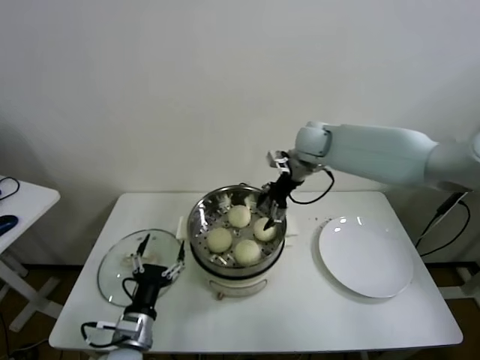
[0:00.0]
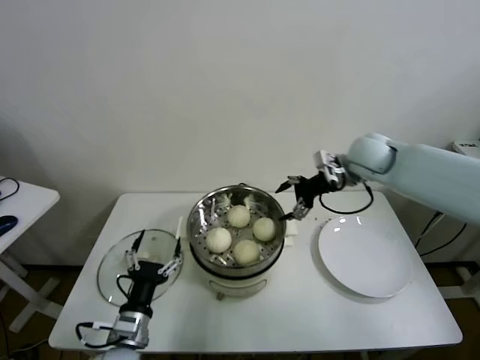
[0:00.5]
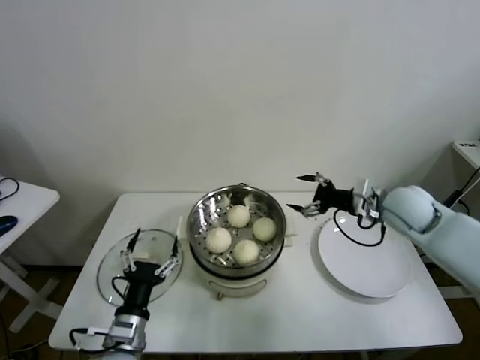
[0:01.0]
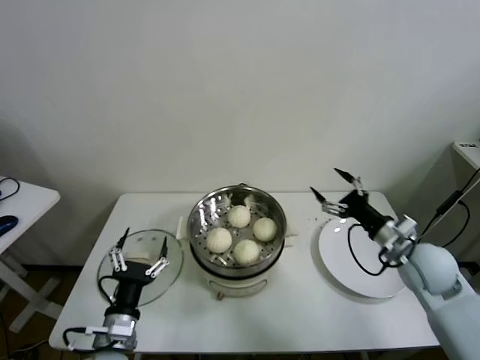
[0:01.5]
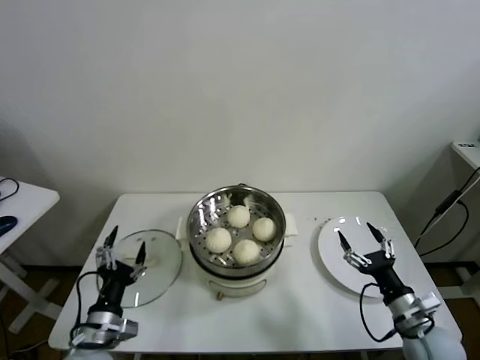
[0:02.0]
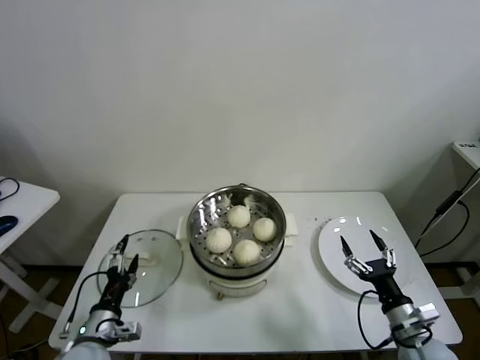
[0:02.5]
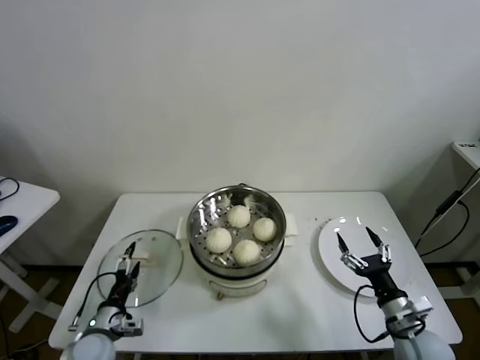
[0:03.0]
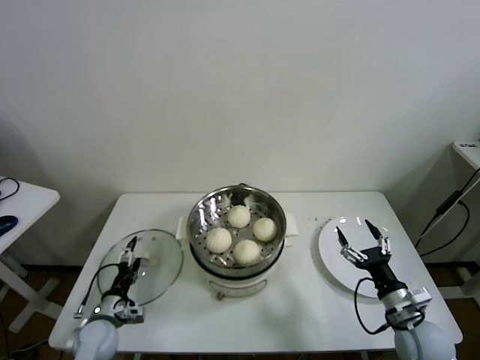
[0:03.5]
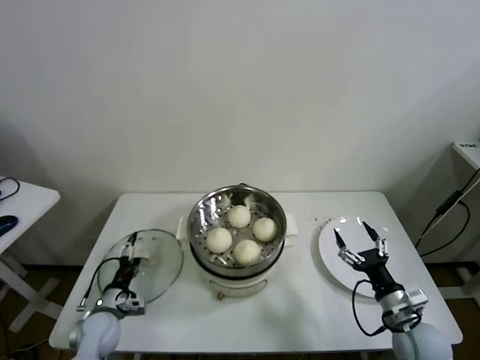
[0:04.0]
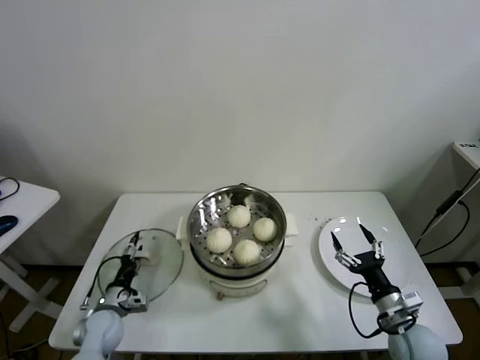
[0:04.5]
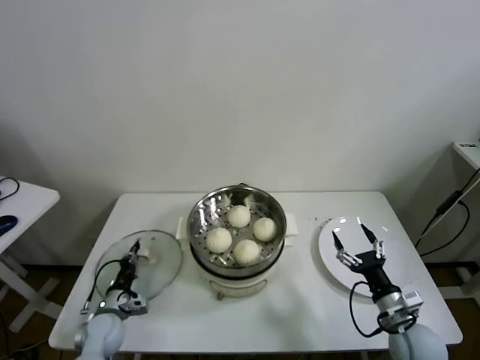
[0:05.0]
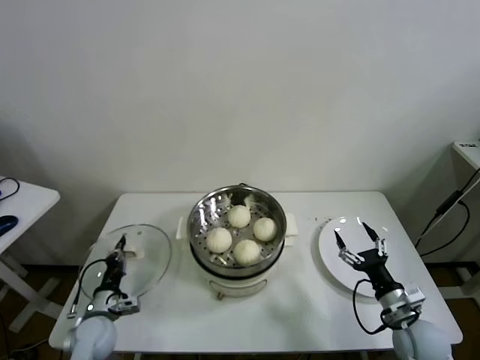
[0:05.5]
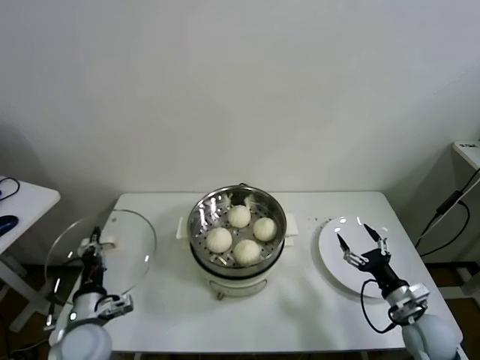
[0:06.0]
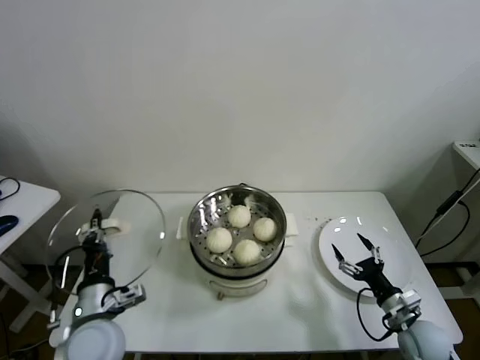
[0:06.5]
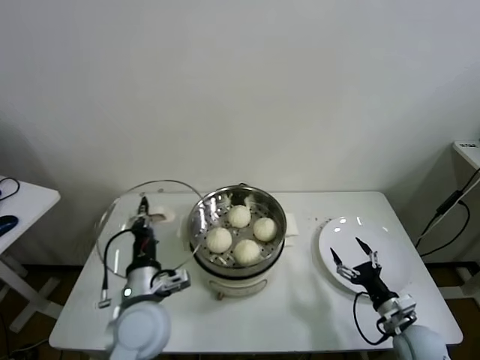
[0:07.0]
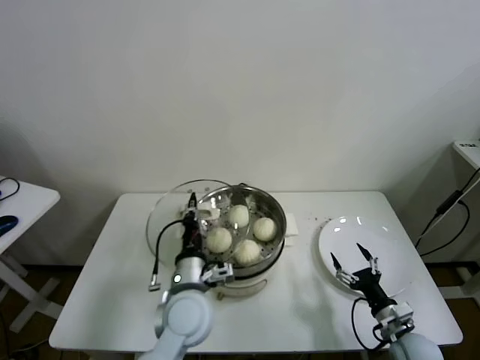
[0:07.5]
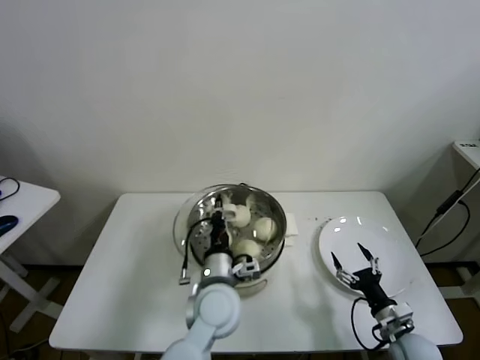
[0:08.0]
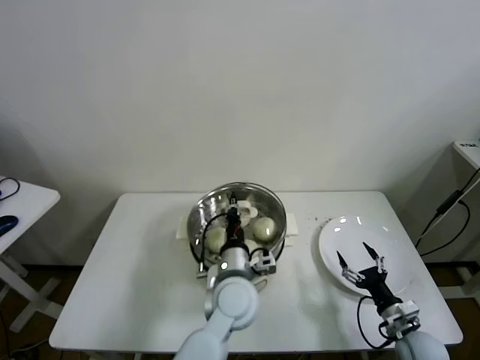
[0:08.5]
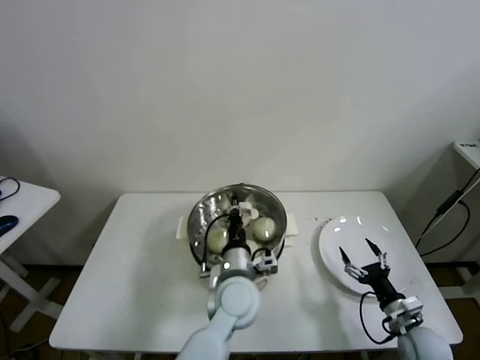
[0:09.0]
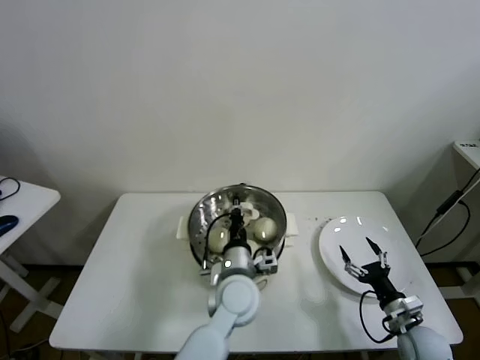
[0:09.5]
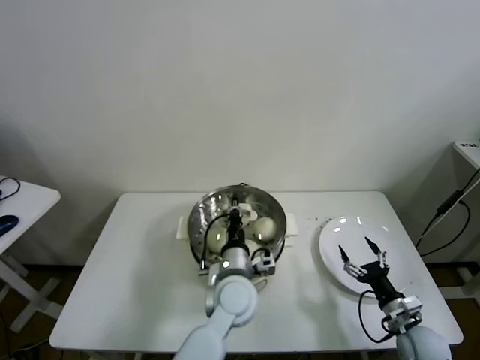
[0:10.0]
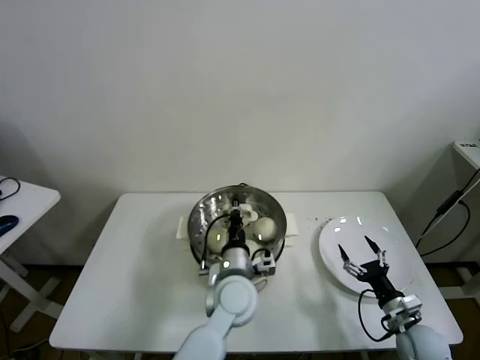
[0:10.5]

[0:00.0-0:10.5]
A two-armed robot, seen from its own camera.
Task of the whole recording: take steamed baozi put them in steamer.
Step, 0:00.0 to 0:04.5: Grasp the pot lid with left gripper.
0:00.0 to 0:02.0: The right gripper heads backward, downward and to the right, covering some 50 cm; the left gripper travels to the left by about 5 cm.
0:02.0 to 0:04.0: The left gripper is displaced downward, forward and to the left by some 15 cm.
0:04.0 to 0:06.5: The left gripper goes roughly 20 cm upward and to the right, and closes. The right gripper changes place by roughly 5 cm.
0:06.5 to 0:08.5: The left gripper heads to the right, covering roughly 25 cm.
0:08.5 to 0:10.5: The grippers make only small movements.

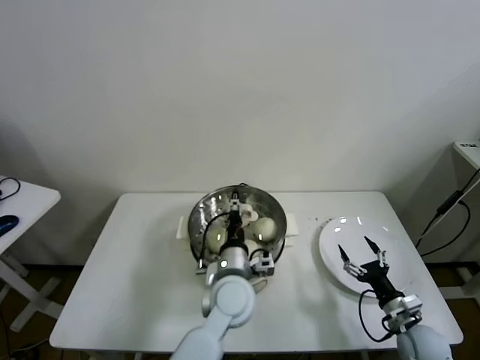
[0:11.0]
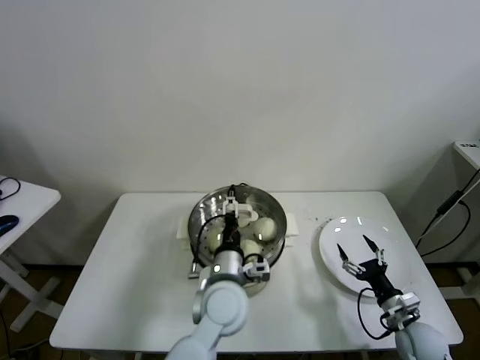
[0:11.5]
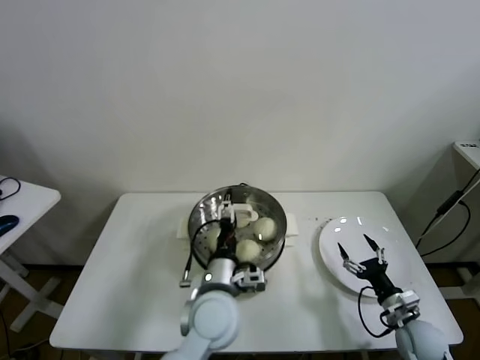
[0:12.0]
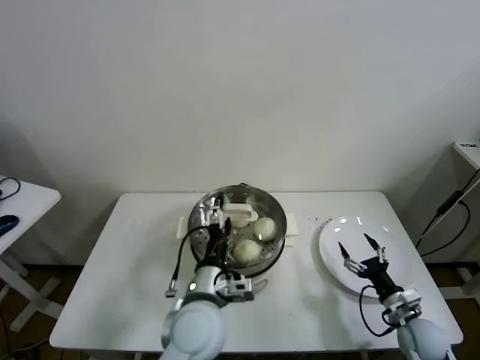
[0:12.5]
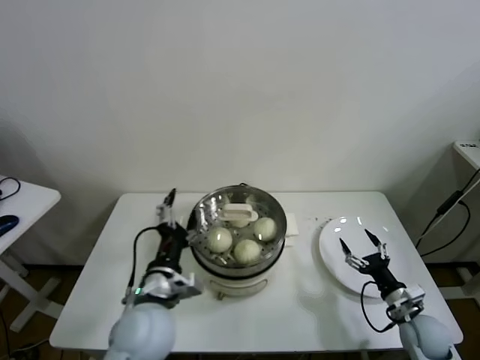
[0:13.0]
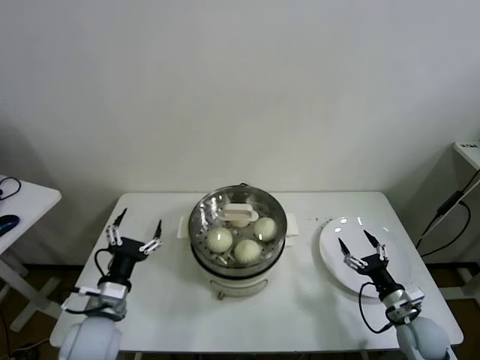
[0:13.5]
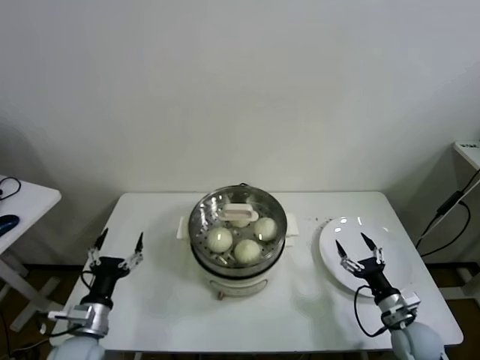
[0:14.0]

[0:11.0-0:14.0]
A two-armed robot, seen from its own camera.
Task of the whole recording: take steamed baozi put them in steamer.
0:11.0 to 0:12.5: The left gripper goes some 5 cm backward, and opens.
0:12.5 to 0:14.0: The left gripper shifts approximately 25 cm to the left.

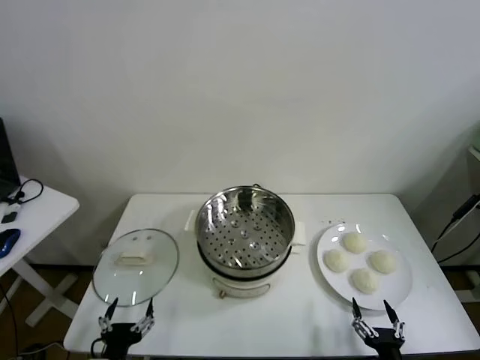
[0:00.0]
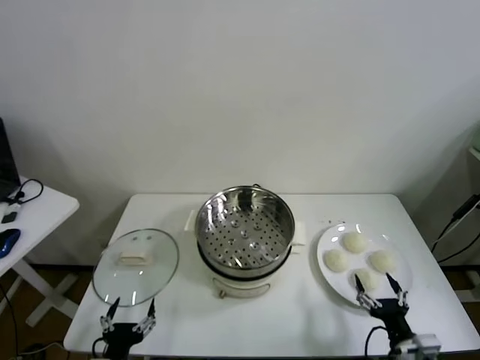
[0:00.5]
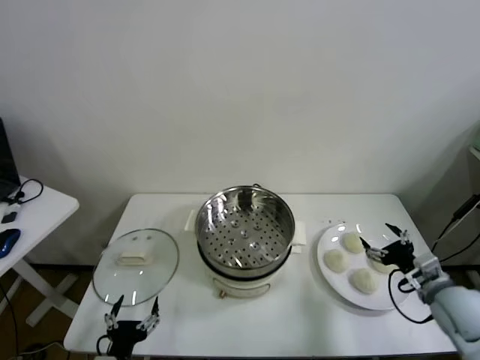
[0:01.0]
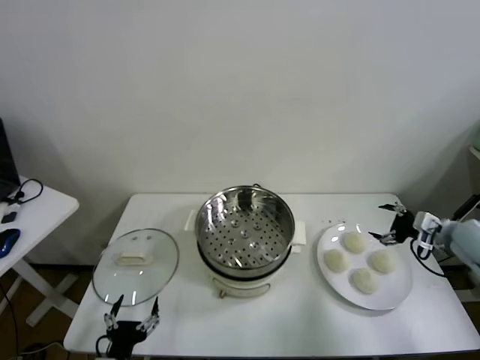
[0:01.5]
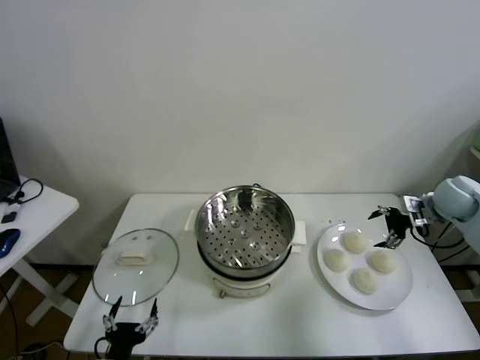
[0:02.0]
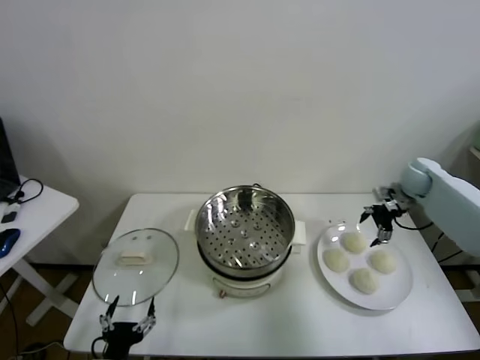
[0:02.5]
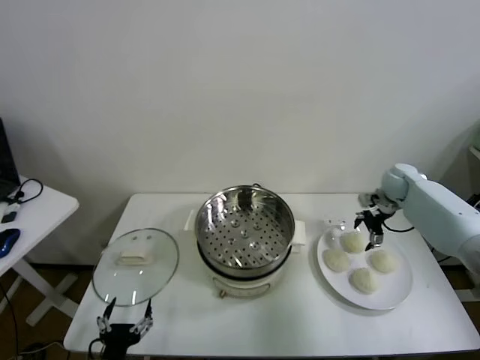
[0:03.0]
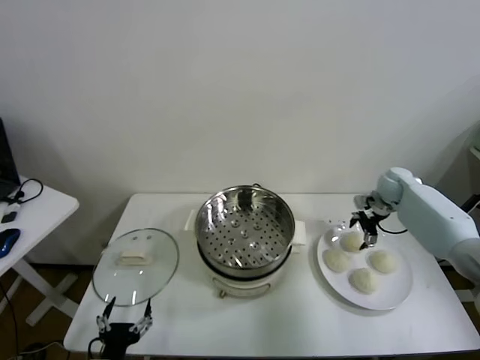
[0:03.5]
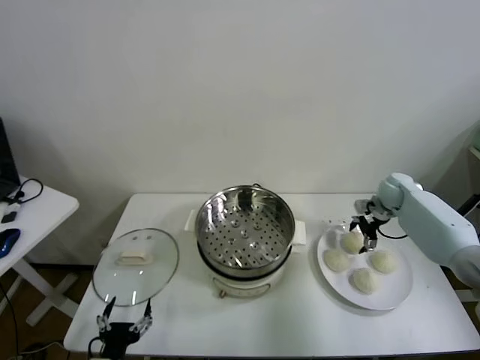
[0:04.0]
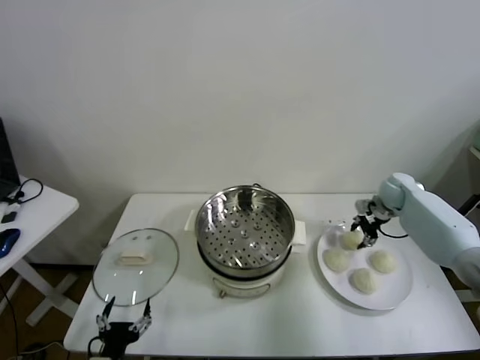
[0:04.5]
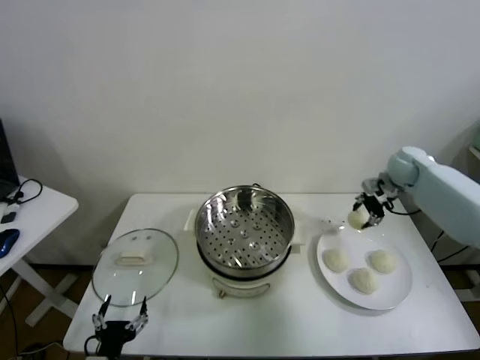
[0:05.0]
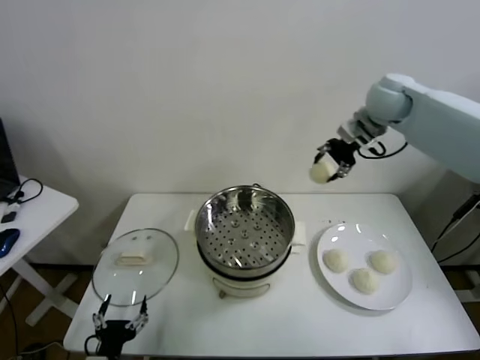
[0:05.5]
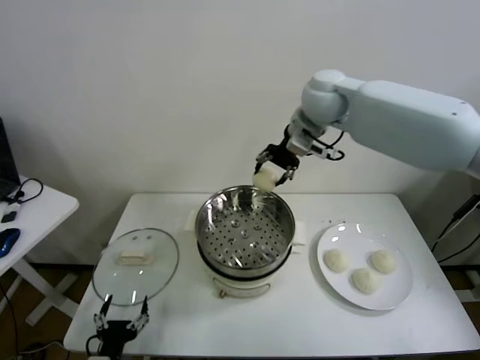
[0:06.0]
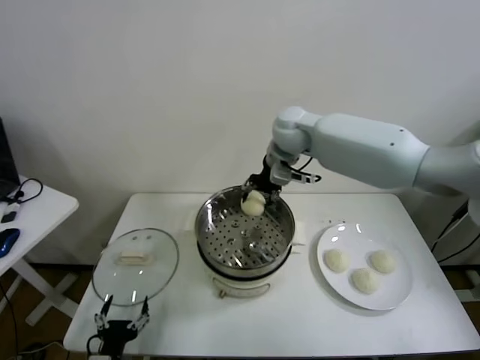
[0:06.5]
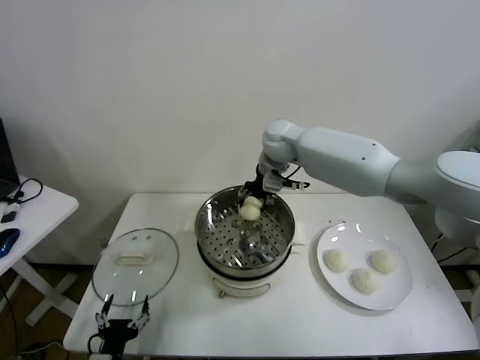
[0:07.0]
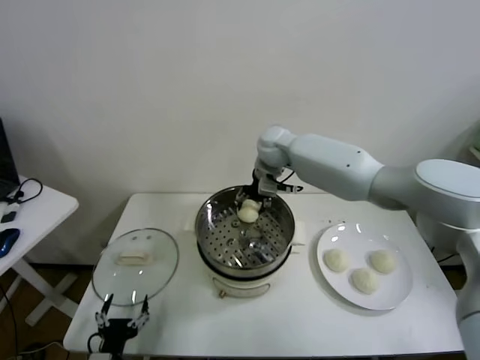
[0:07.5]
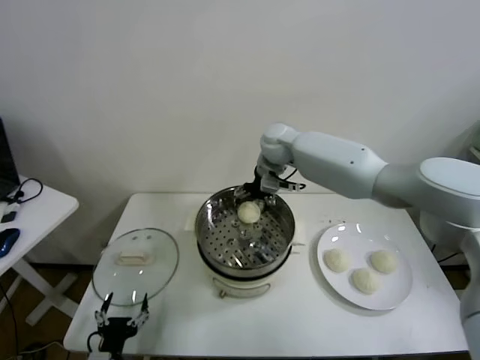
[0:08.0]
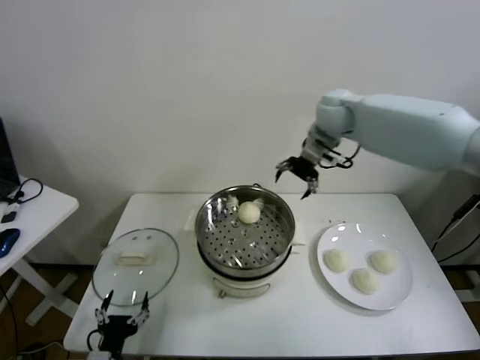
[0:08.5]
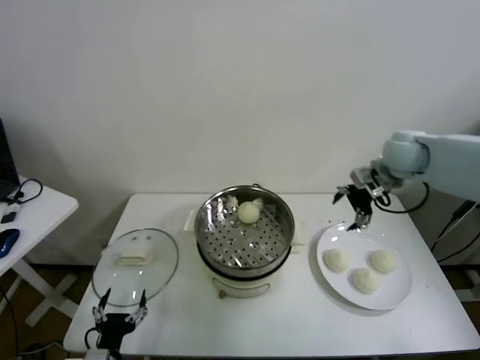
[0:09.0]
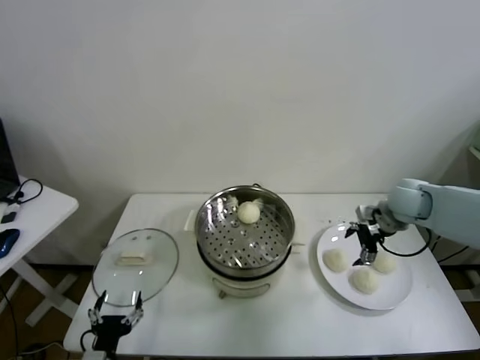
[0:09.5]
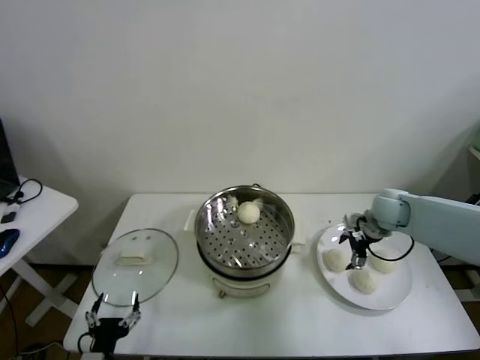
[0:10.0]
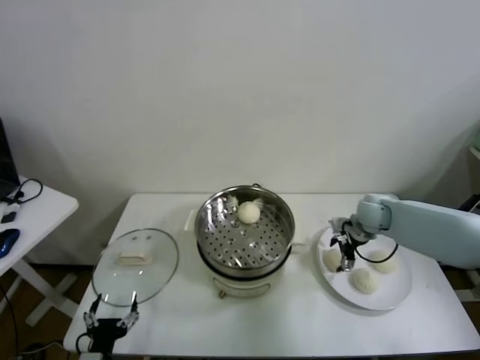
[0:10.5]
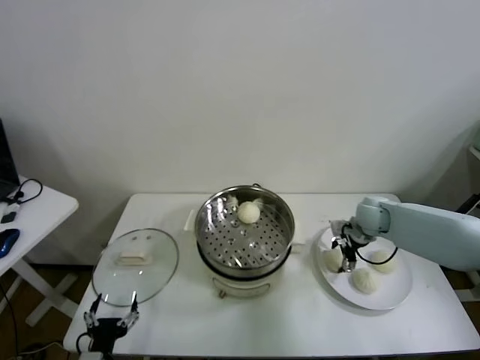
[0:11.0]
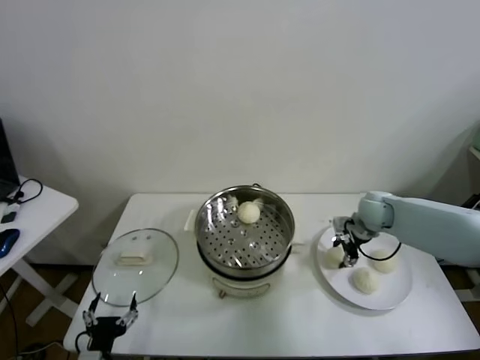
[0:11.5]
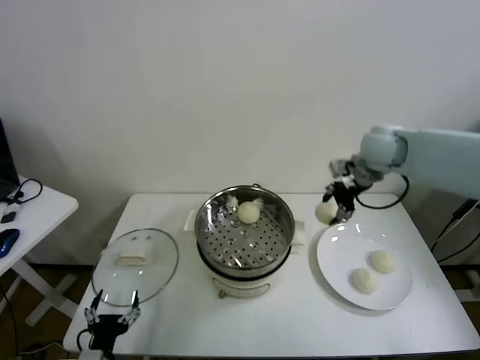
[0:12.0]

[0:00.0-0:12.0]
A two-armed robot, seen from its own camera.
Task of the whole recording: take steamed baozi put them in steamer.
Step, 0:00.0 to 0:04.0: Grasp the baozi in the plate with right gripper.
Step, 0:04.5 to 0:07.5: Place the baozi on the steamer with right gripper.
Step, 0:08.5 to 0:11.0: Grasp the baozi in the plate with right gripper.
0:02.0 to 0:04.0: The right gripper shifts roughly 15 cm forward, downward and to the left.
0:04.0 to 0:06.0: The right gripper heads to the left and upward, covering roughly 40 cm, and closes.
0:06.0 to 0:08.0: The right gripper moves downward, some 10 cm, and opens its fingers.
0:08.0 to 0:10.0: The right gripper travels to the right, downward and backward by some 30 cm.
0:10.0 to 0:12.0: The right gripper is displaced upward by about 20 cm, and closes up.
